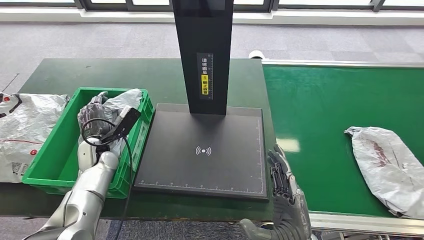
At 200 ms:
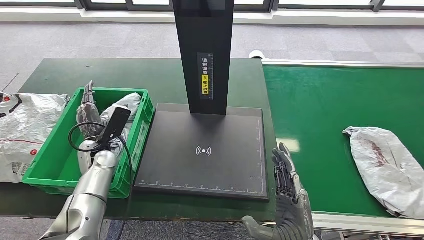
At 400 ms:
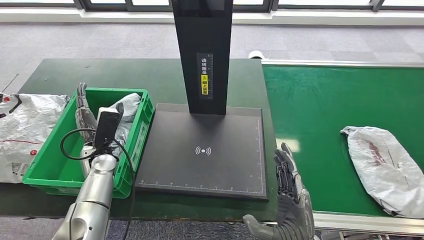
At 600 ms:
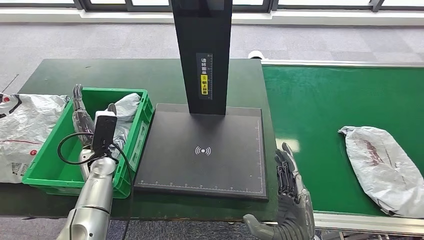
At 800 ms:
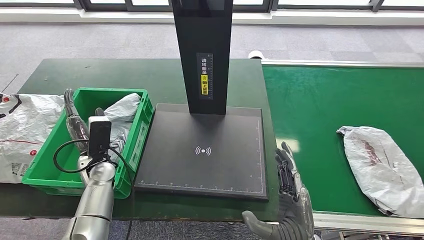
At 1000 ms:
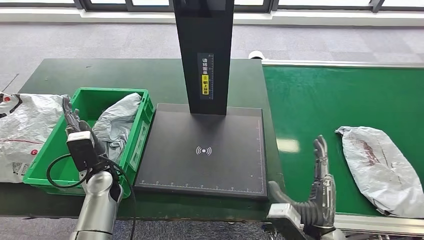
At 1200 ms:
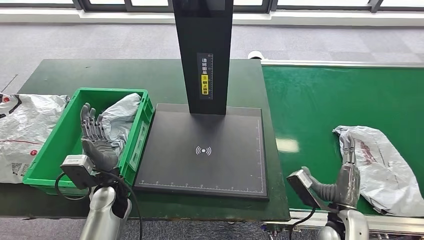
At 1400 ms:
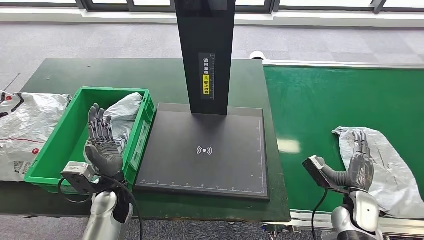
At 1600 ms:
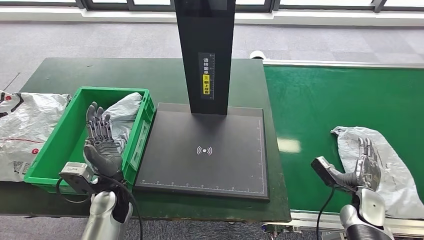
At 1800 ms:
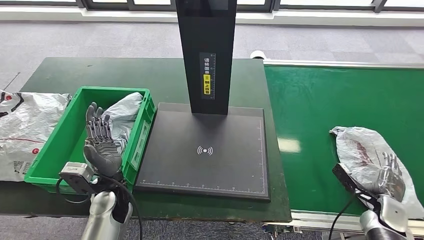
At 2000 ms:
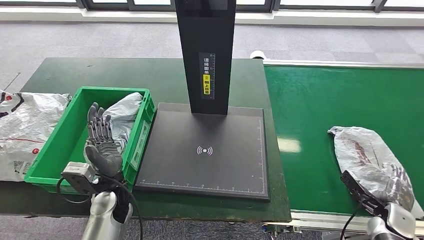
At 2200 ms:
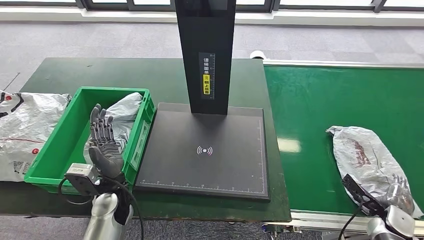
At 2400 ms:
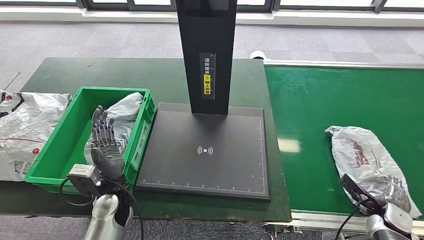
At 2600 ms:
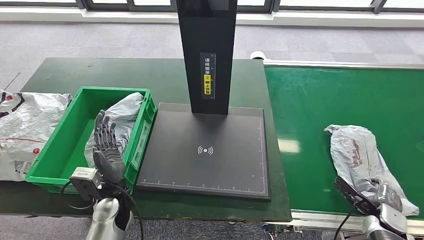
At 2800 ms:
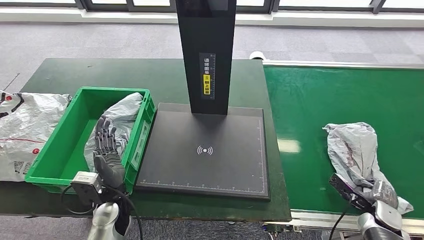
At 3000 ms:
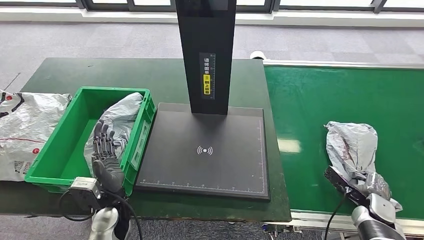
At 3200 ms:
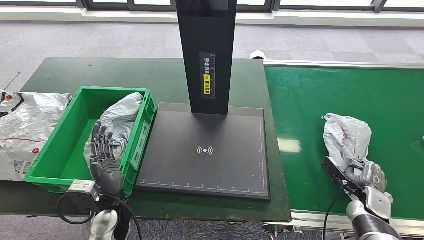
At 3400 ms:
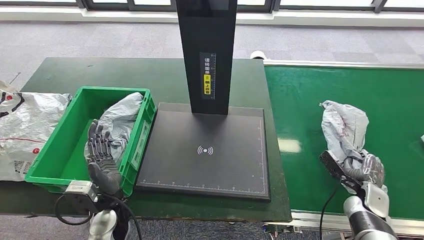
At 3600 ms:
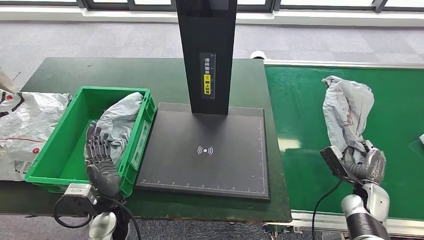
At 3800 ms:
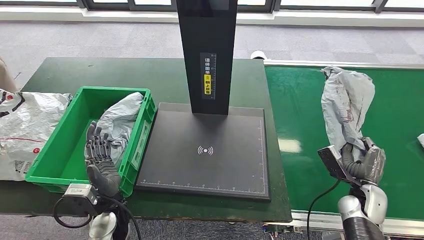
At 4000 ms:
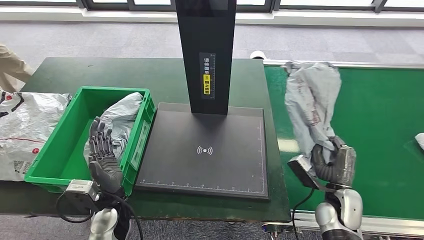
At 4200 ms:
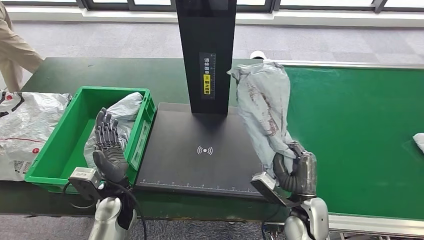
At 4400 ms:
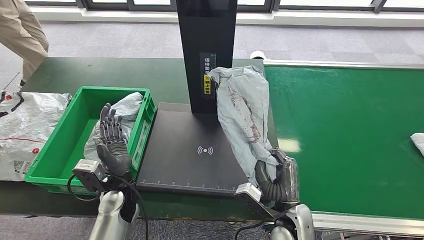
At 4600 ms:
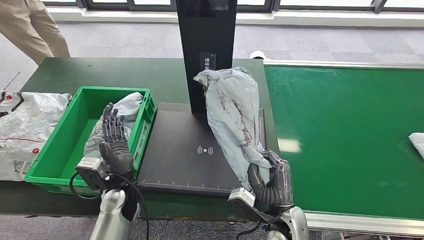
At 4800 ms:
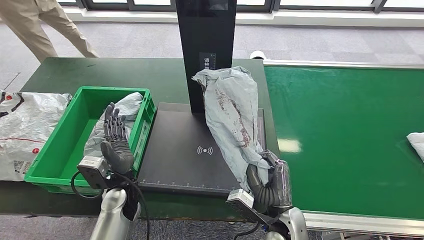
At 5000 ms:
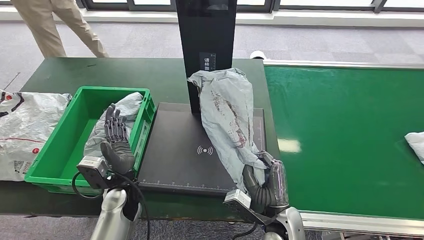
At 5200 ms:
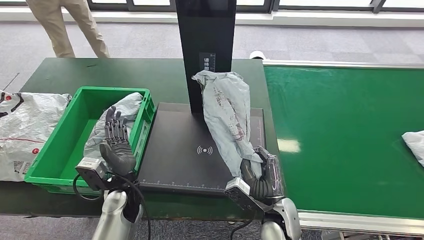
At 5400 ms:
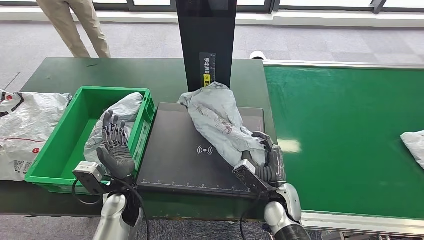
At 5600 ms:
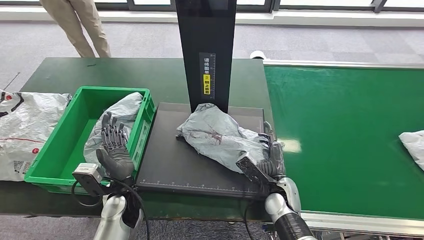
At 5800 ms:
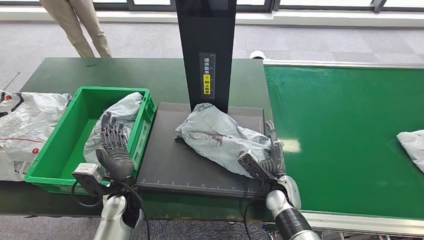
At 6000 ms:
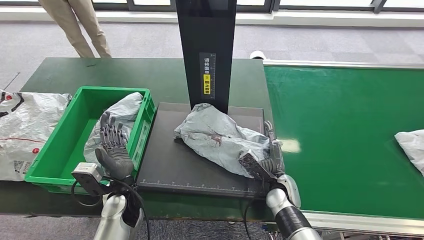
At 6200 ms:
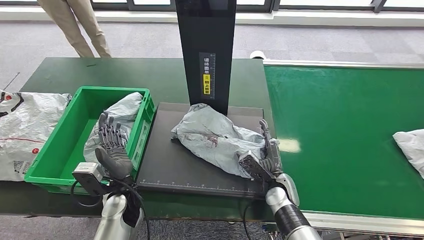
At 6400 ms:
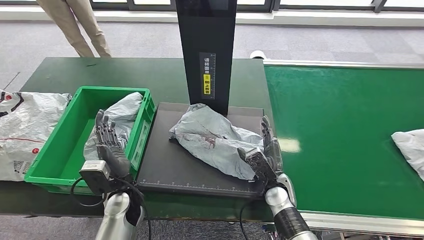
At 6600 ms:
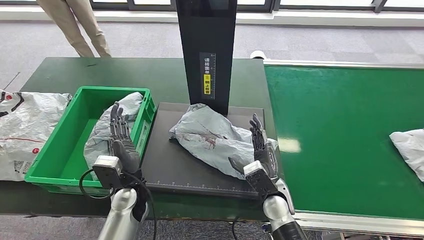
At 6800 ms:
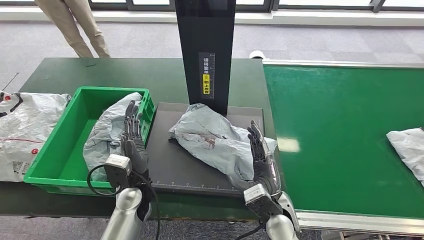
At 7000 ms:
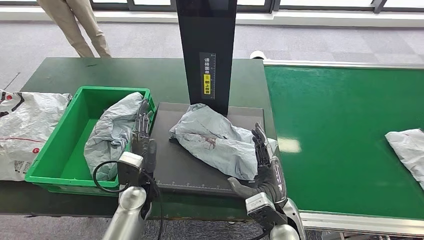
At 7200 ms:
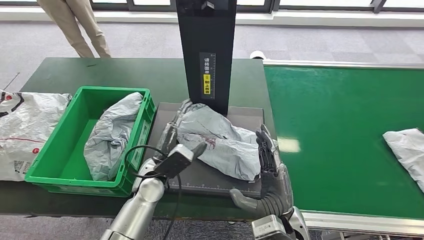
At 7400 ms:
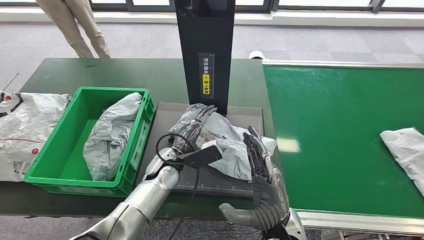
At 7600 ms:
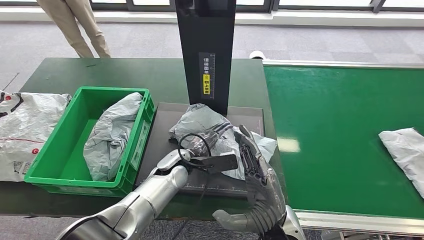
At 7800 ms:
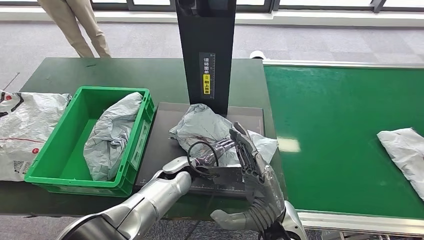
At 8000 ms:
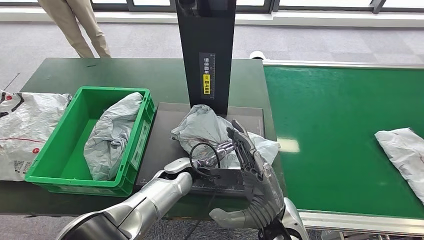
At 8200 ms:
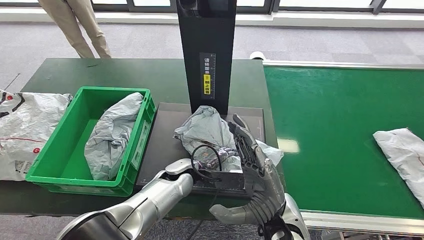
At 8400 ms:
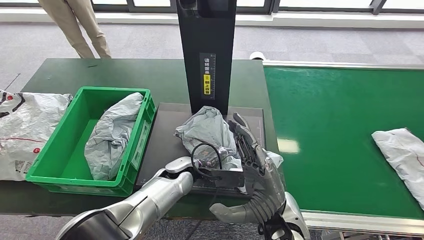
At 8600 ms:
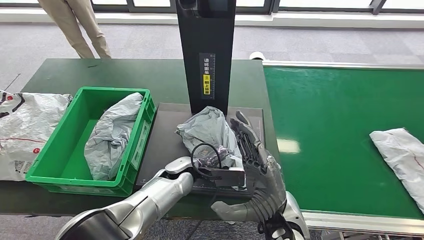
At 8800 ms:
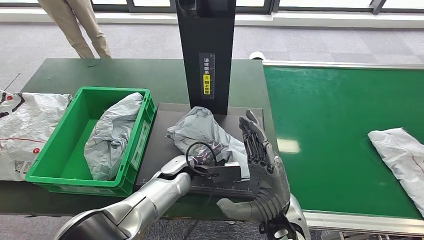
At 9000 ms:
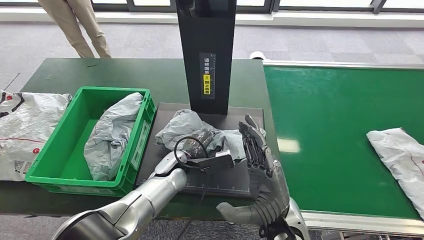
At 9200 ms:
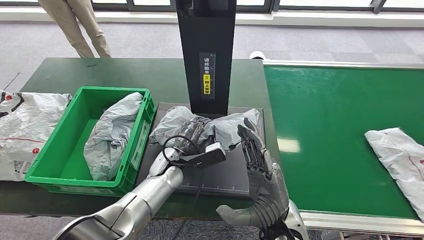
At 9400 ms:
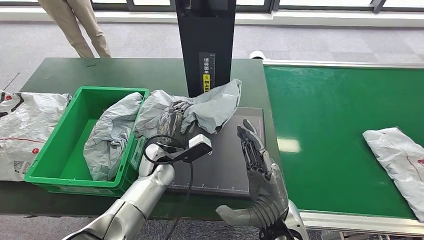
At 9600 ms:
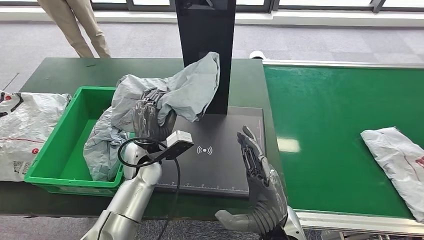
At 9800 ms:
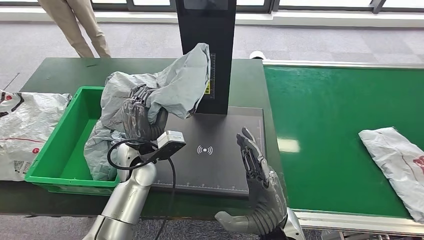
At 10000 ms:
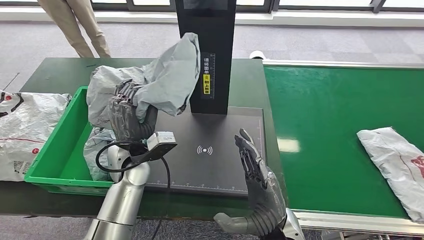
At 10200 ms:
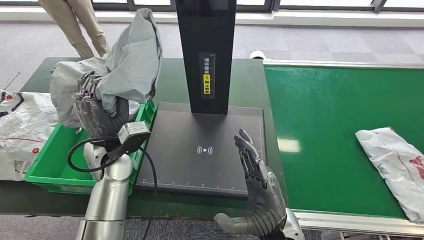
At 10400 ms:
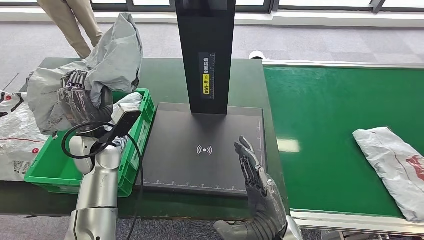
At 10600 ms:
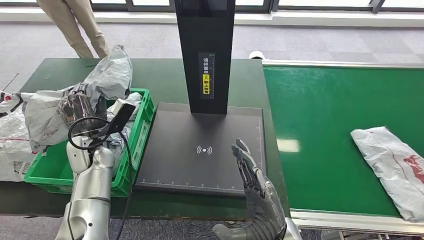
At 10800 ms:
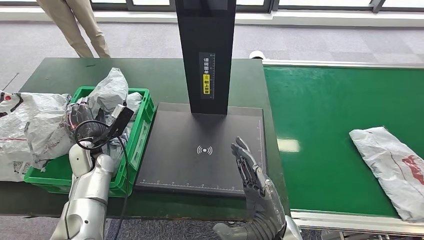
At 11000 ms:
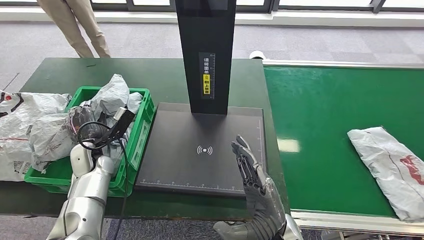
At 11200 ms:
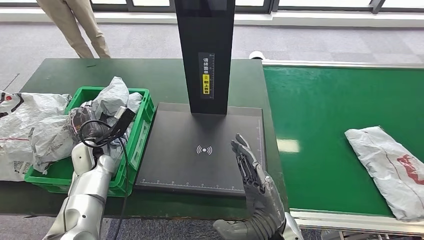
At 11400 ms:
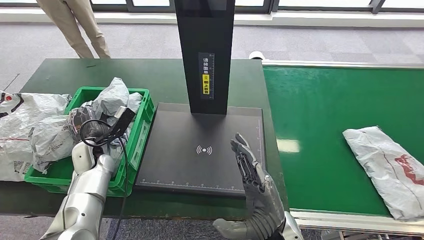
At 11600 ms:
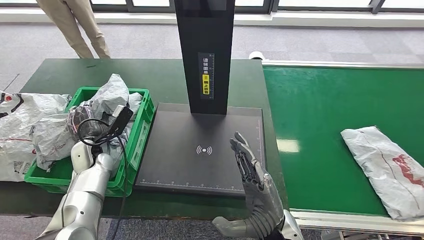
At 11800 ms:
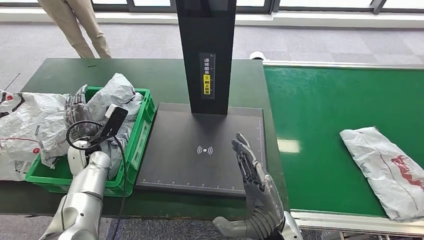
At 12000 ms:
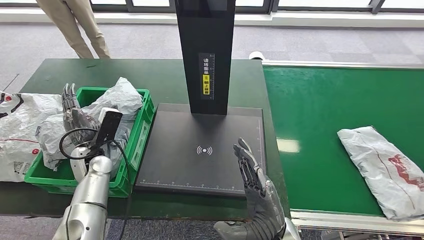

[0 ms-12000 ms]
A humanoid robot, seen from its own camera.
Step, 1400 ms to 3800 ms: Pick up the parcel from the conveyor belt.
Step, 4000 ms to 6400 ms: Place the parcel onto the inbound machine.
Step, 6600 ms to 9600 ms: Pick up the parcel from the inbound machine.
0 ms to 1600 ms: The right hand moves to the right, forward and downward, roughly 30 cm, while the left hand is displaced backward and to the right by approximately 15 cm.
6000 ms to 7600 ms: The right hand shifts roughly 15 cm upward and backward. The left hand heads to the right and forward, covering some 15 cm.

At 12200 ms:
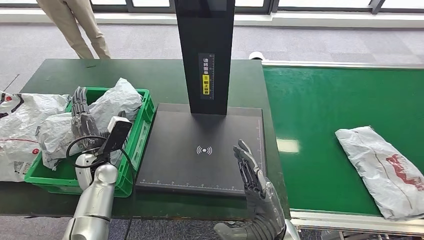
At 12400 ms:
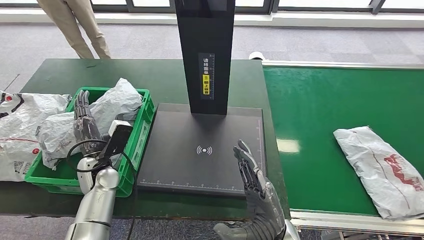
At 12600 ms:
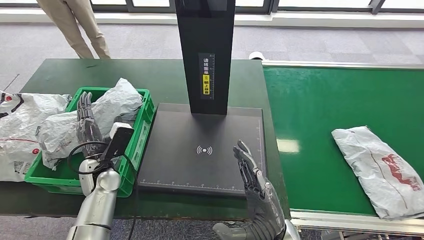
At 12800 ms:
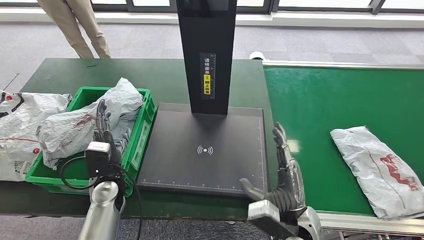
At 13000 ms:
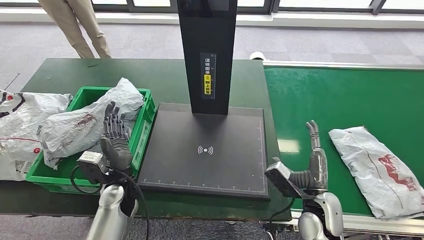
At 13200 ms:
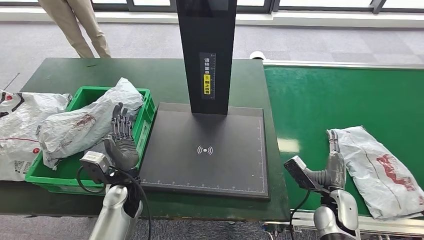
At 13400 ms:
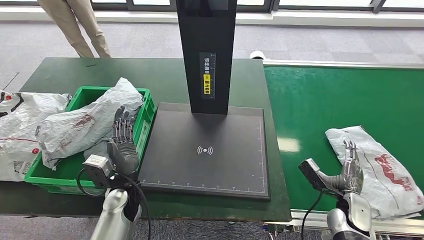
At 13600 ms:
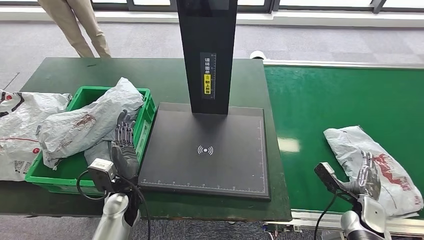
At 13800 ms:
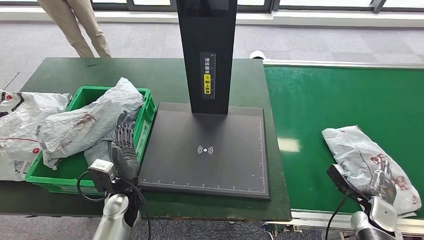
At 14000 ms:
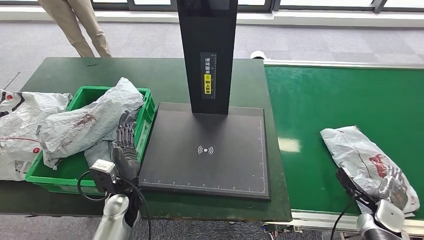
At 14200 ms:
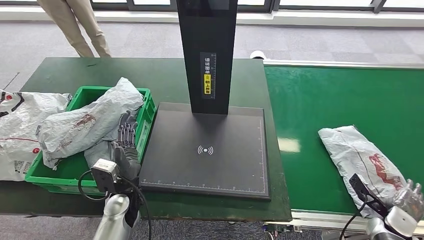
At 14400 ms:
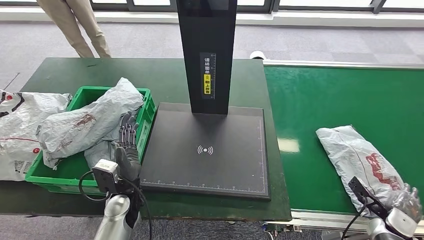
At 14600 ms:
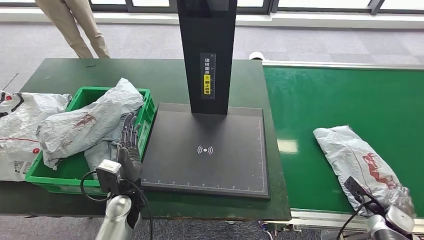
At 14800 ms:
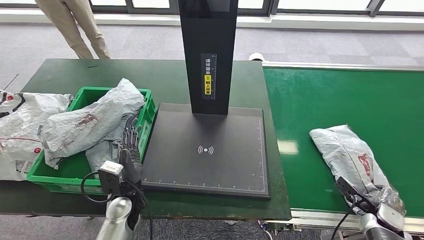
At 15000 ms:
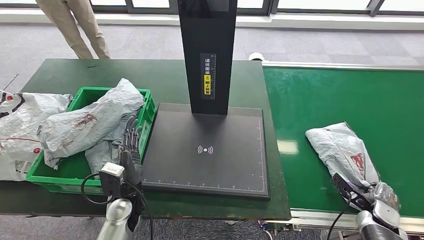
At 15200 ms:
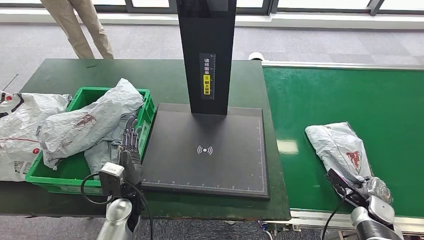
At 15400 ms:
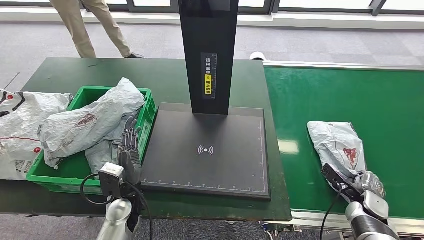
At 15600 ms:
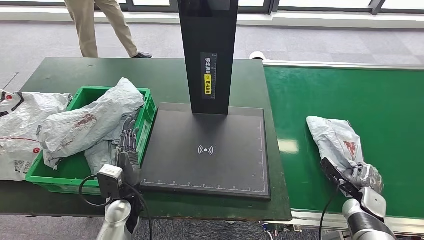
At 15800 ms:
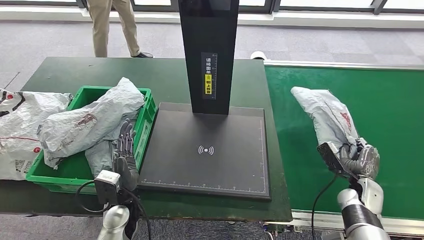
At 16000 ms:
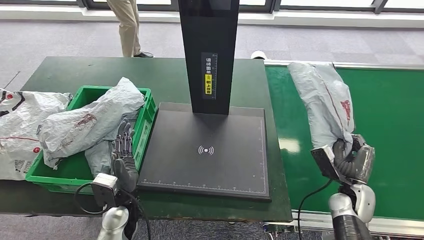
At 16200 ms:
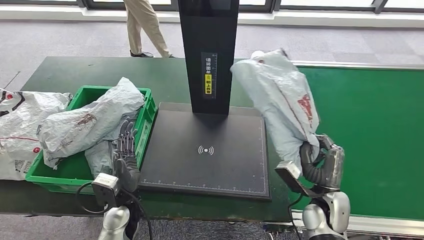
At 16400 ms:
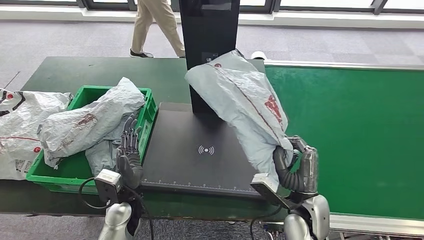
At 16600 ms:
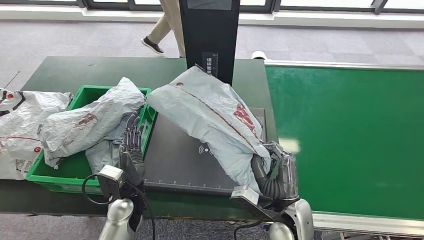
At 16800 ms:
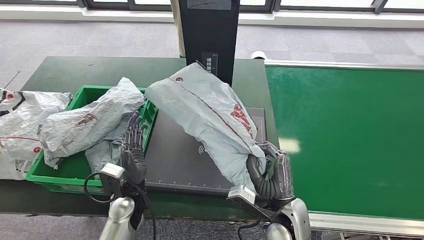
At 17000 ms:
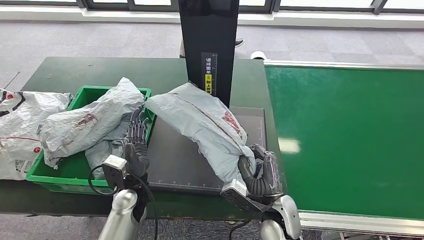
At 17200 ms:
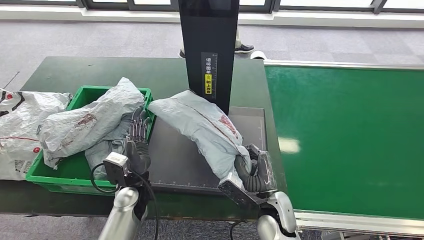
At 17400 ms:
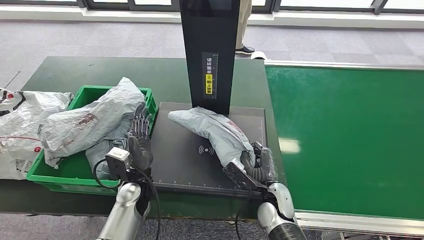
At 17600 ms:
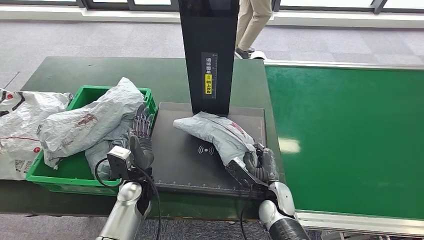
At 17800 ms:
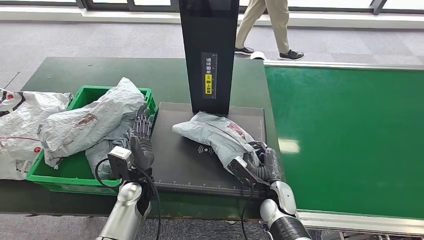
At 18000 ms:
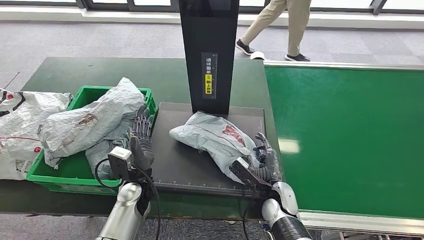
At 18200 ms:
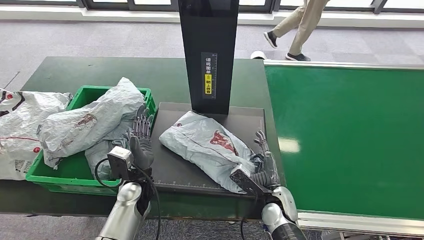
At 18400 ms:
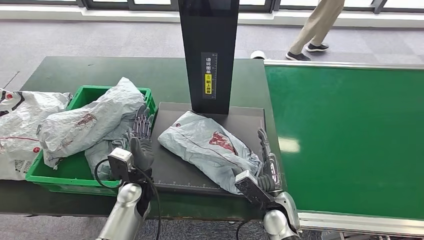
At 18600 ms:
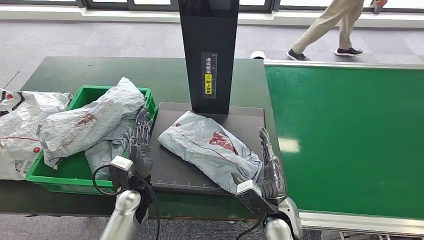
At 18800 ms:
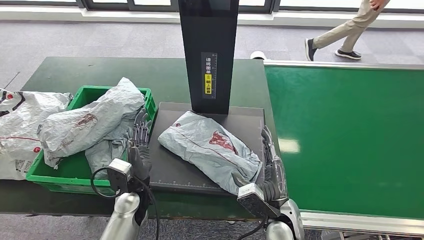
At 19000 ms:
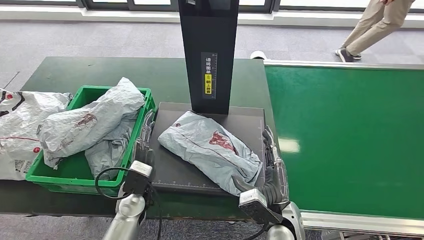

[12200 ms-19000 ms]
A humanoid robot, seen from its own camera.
Step, 12800 ms to 16000 ms: Pick up the parcel from the conveyor belt.
Step, 16400 ms to 18600 ms: Place the parcel onto the inbound machine.
17600 ms to 19000 ms: The right hand moves upward and backward, roughly 10 cm.
